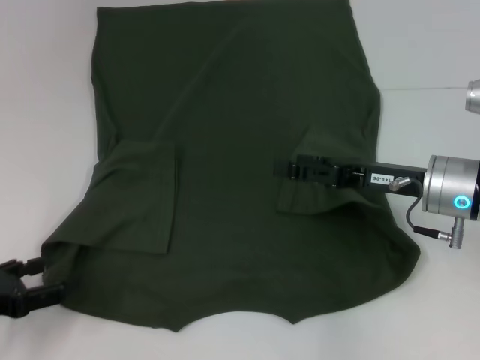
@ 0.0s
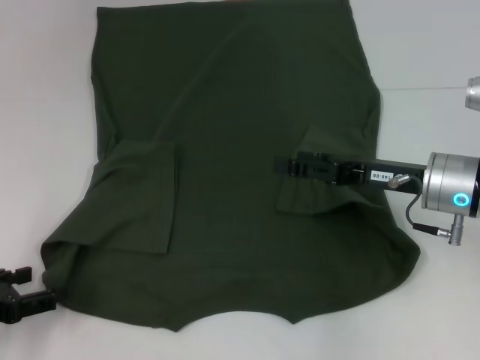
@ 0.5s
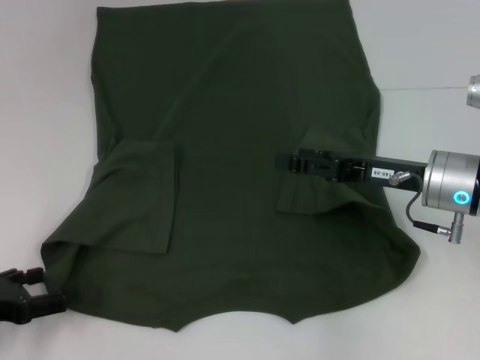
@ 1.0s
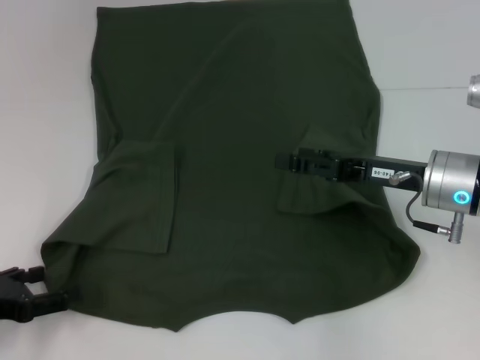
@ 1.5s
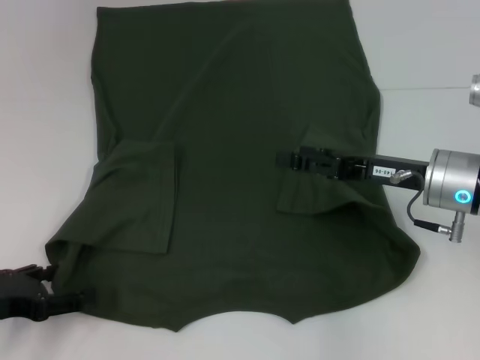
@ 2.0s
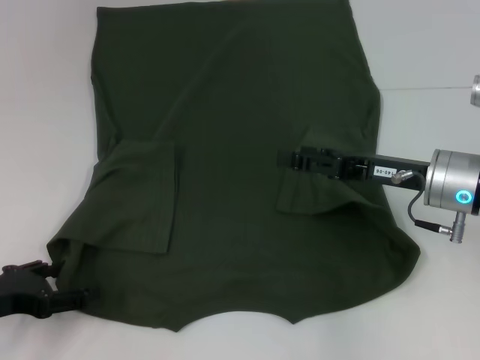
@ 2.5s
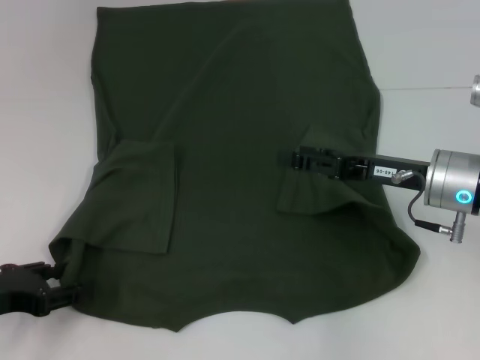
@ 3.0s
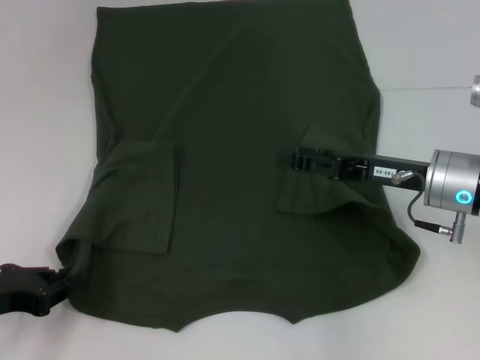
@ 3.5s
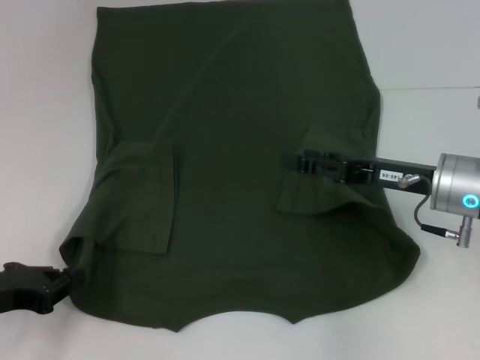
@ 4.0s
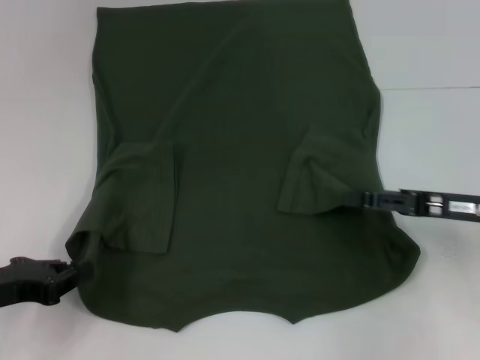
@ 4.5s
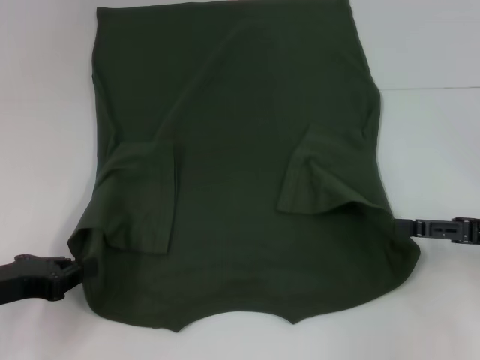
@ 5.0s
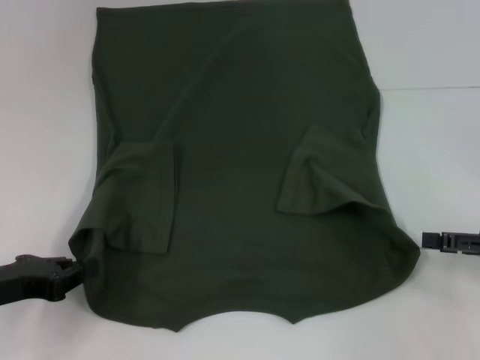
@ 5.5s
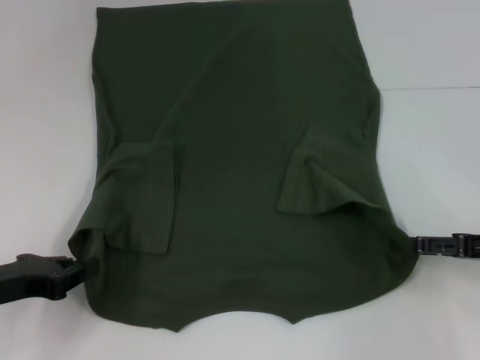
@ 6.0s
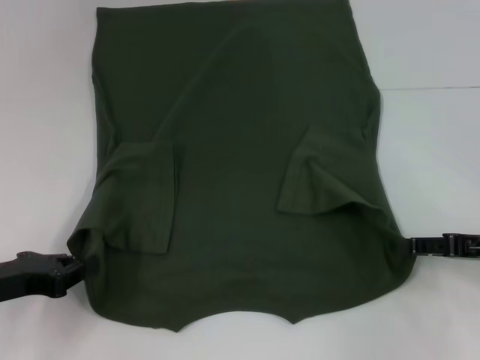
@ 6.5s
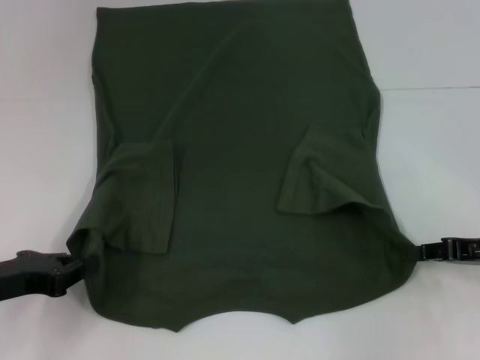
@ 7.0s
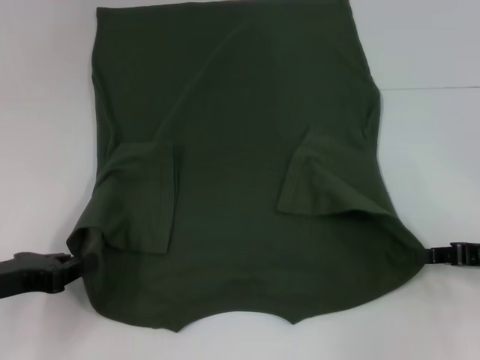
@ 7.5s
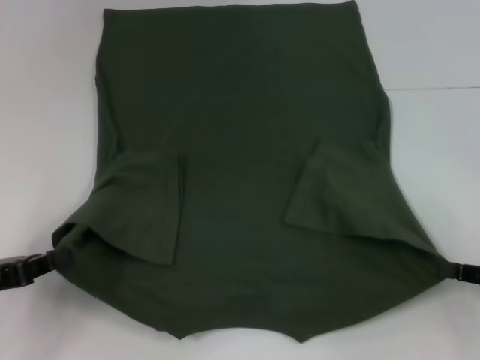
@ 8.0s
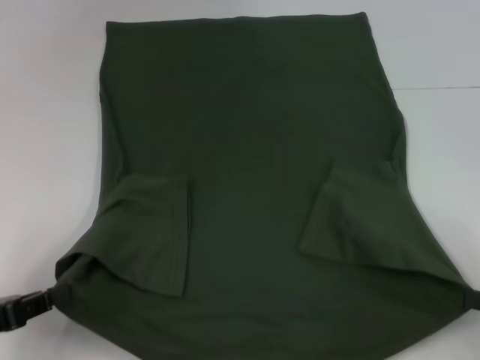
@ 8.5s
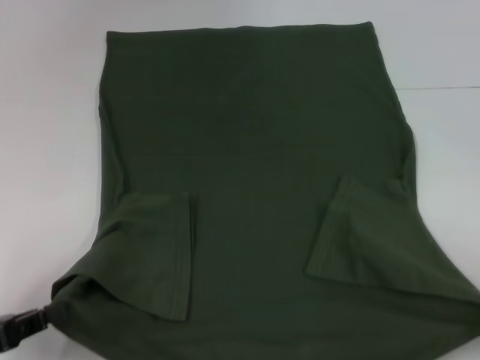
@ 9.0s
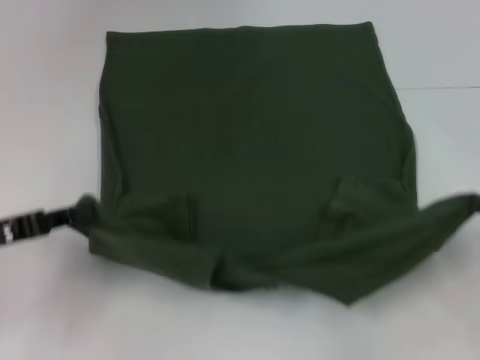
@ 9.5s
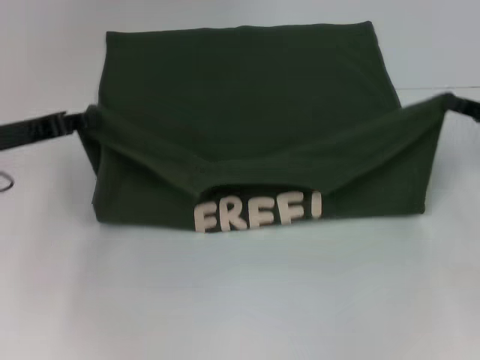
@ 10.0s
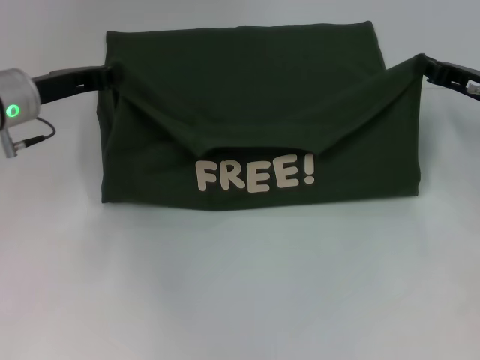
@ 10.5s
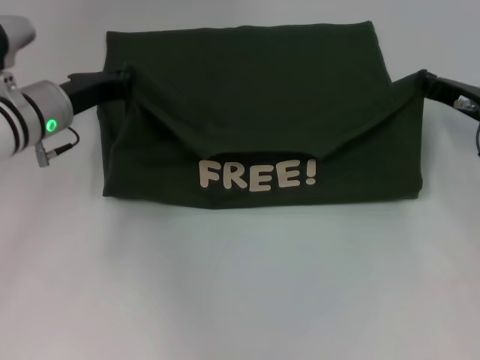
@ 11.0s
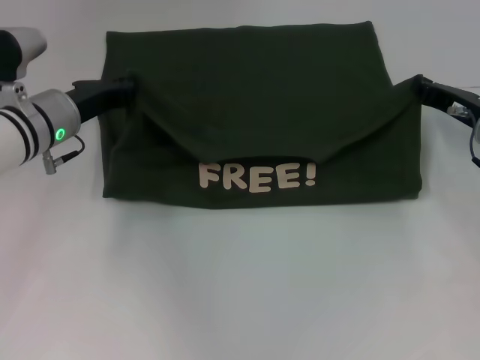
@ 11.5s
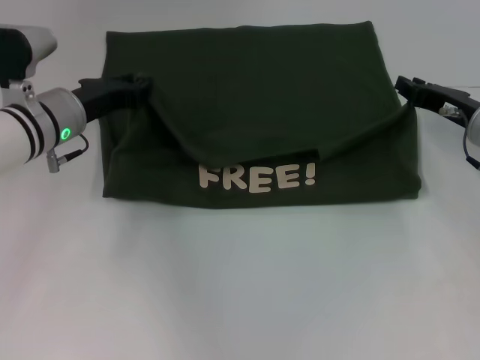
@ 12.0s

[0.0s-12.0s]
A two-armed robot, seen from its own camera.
Step, 0.0s to 3.5s: Grab the bottom left corner with your left hand.
Step, 4.0s to 7.0s: Grab the bottom right corner with your right hand.
Step, 7.5s to 12.0s: Fold the clothes with your left hand.
Step, 7.5s to 12.0s: Fold the clothes with your right hand.
0.0s to 2.0s: The grippers make only small movements.
2.0s to 4.0s: The left gripper closes its fingers.
4.0s to 6.0s: The right gripper heads to the right and backward, covering some 15 cm.
6.0s to 8.0s: The right gripper goes some 5 cm backward, and closes up.
8.0s to 10.0s: Both grippers move forward and upward, about 15 cm.
10.0s to 12.0s: The left gripper travels to the right and forward by approximately 10 cm. The right gripper moves to the left and forward, about 10 cm.

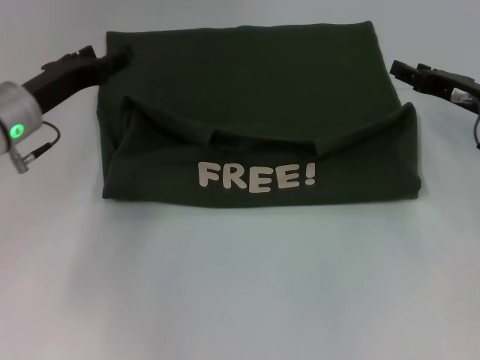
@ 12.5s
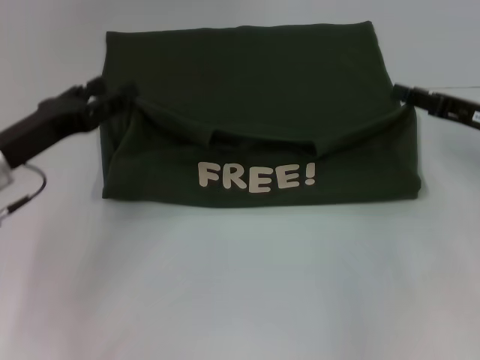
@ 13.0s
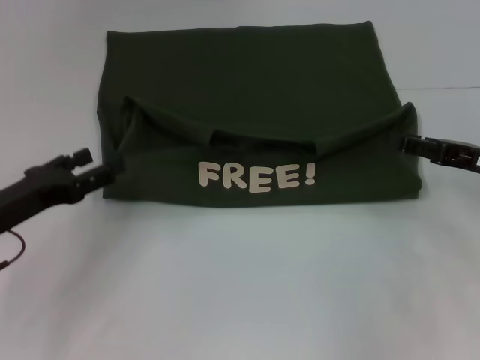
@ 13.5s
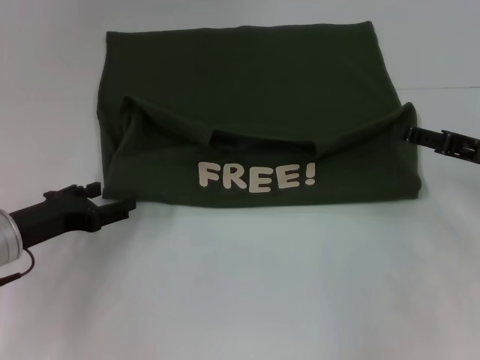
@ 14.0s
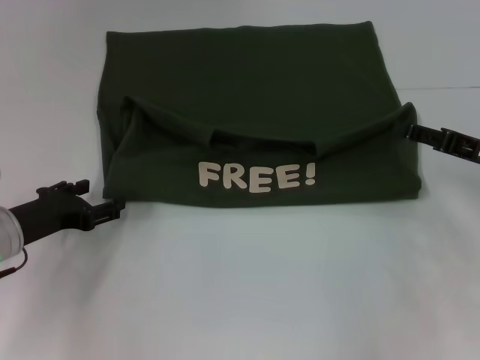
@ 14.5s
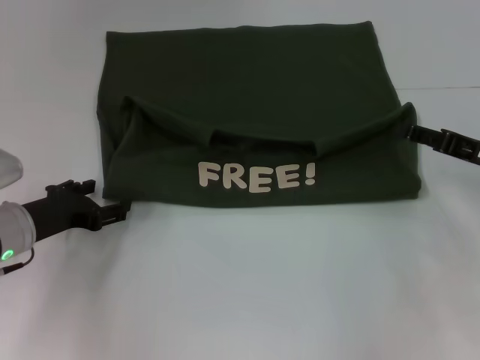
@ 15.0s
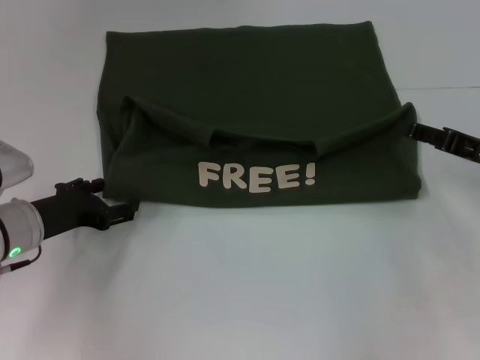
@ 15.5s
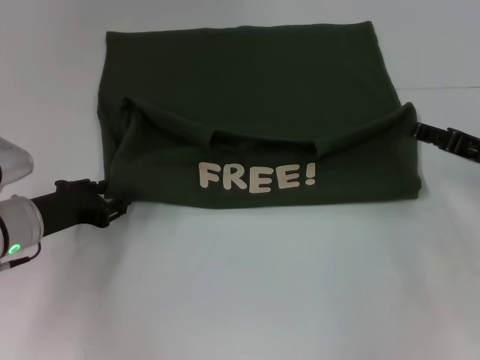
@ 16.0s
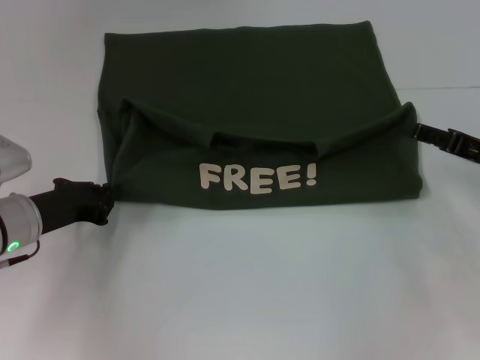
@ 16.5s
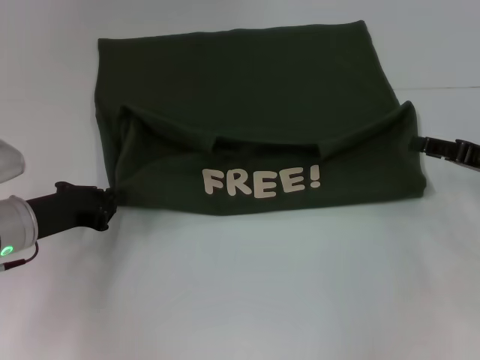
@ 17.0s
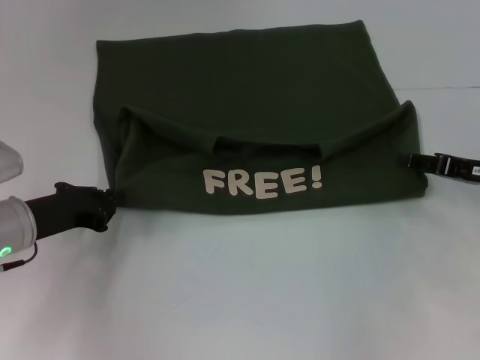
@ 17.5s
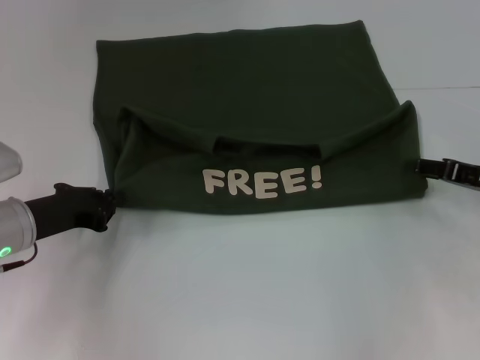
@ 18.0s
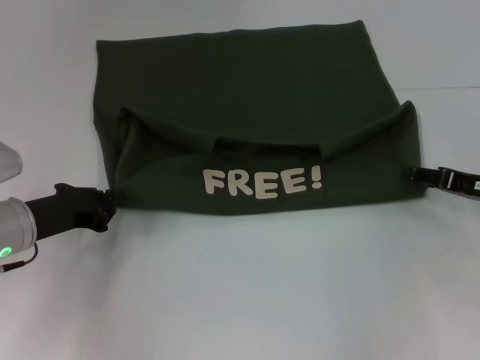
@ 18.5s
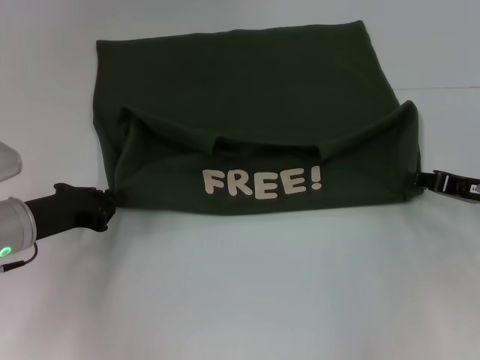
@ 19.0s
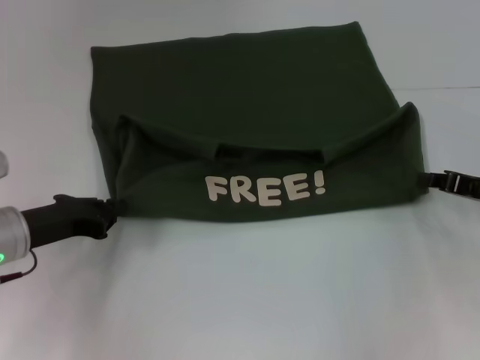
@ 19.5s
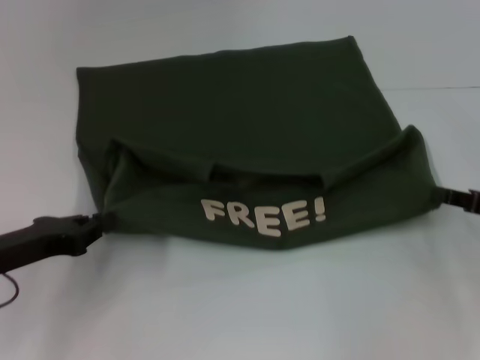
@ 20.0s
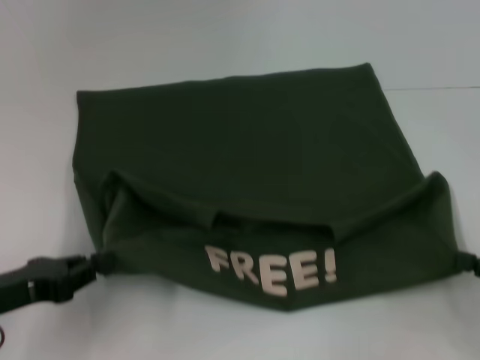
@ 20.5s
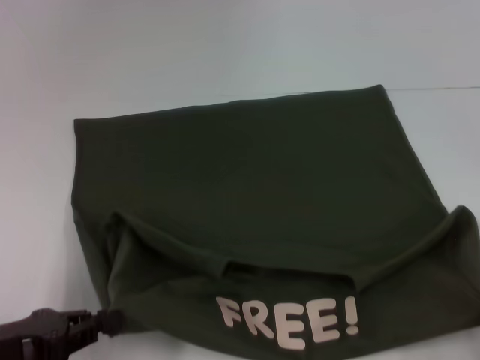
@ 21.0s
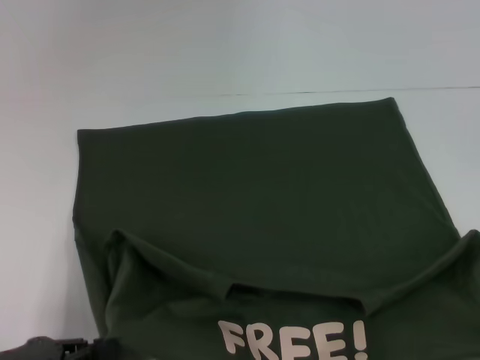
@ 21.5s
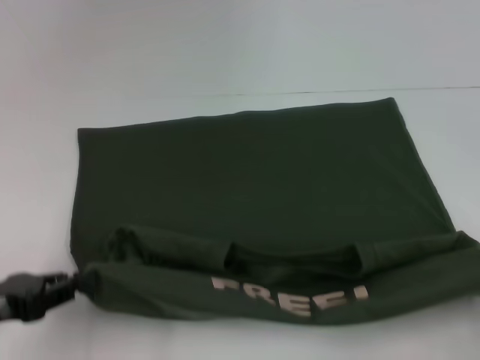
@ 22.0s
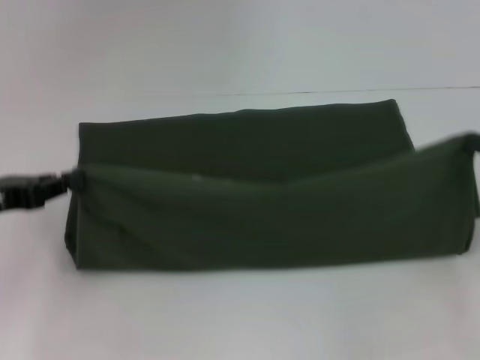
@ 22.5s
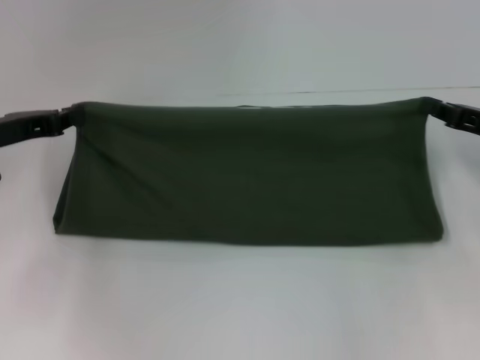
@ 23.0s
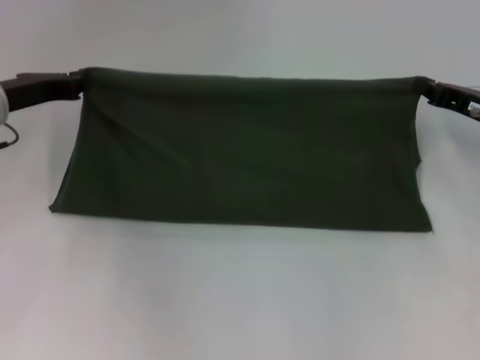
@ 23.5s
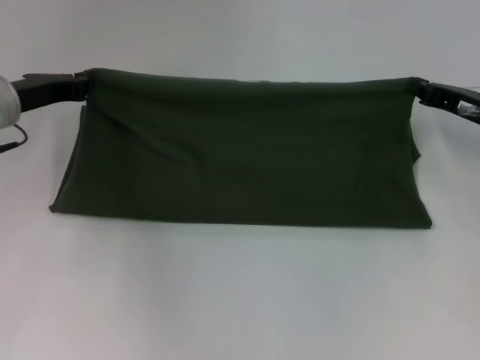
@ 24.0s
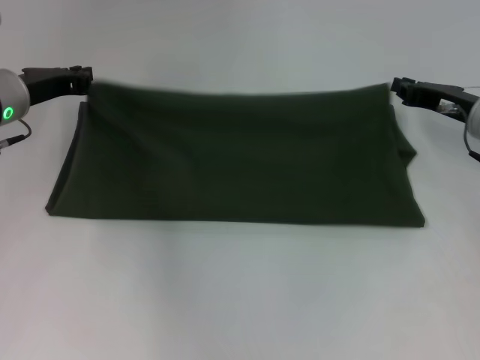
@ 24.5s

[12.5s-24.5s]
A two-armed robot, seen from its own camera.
Step, 12.5s to 21.0s: Pull the clothes with your left hand.
Step, 12.5s to 21.0s: Pull the clothes with your right hand.
12.5s to 14.5s: The left gripper shifts some 10 cm backward and downward. The right gripper shifts roughly 5 cm backward.
14.5s to 16.5s: The left gripper closes.
16.5s to 18.5s: The grippers move only a little.
18.5s to 20.5s: The two grippers go some 10 cm backward. The right gripper closes up.
20.5s to 22.5s: Both grippers move forward and upward, approximately 10 cm.
22.5s to 24.5s: The right gripper is displaced forward and to the left by about 15 cm; the left gripper heads forward and to the right, covering about 15 cm.

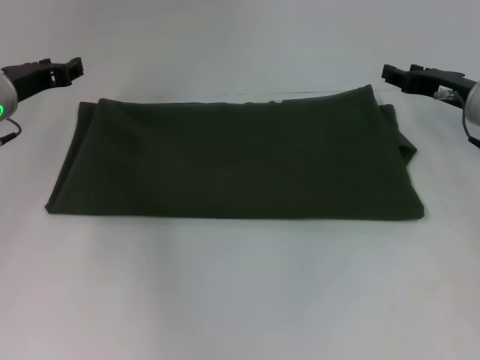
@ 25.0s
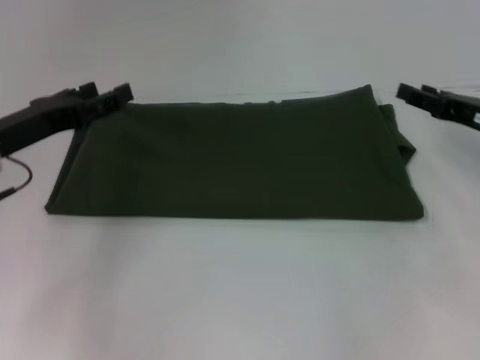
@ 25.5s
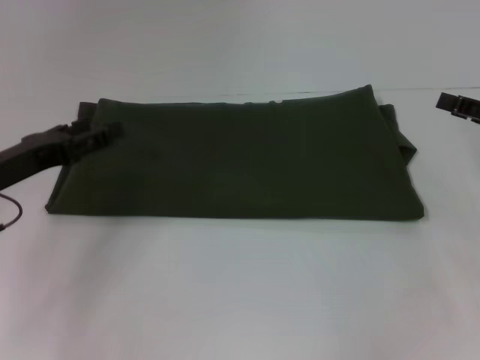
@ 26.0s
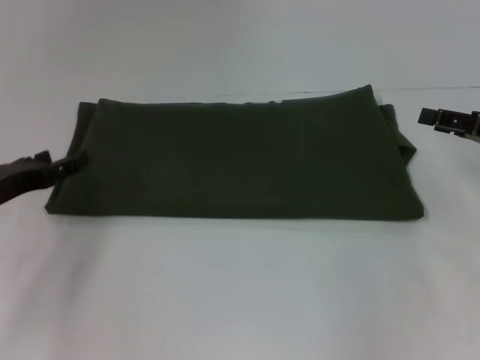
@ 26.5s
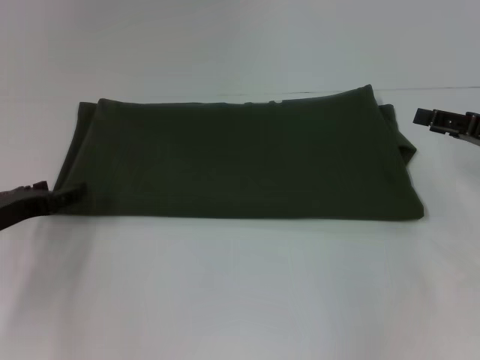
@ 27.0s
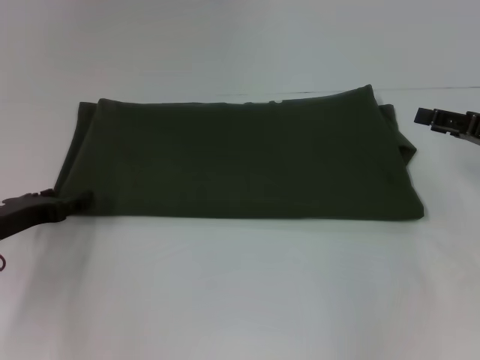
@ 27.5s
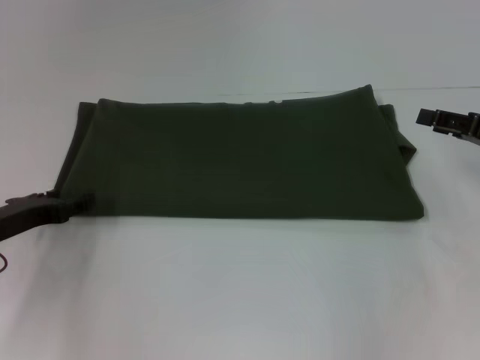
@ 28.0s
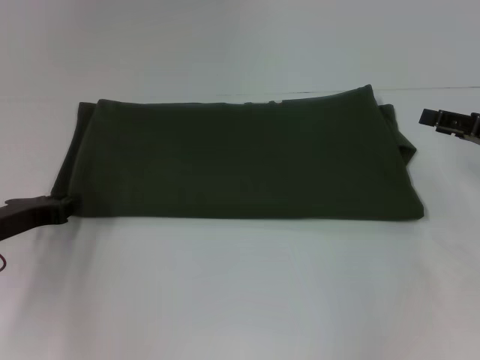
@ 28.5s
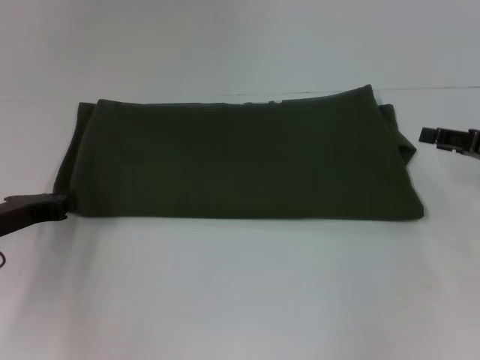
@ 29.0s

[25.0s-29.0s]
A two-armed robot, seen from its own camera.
25.0s to 27.0s: The right gripper is displaced backward and to the right by approximately 10 cm, while the left gripper heads backward and downward, covering some 15 cm, and opens up.
27.0s to 29.0s: The left gripper closes its fingers.
